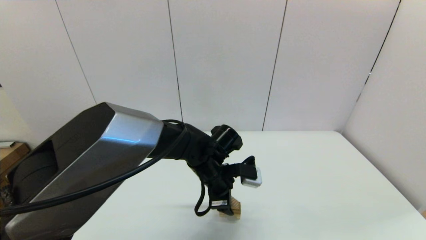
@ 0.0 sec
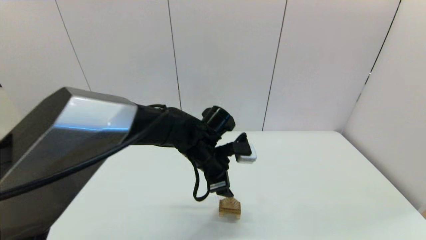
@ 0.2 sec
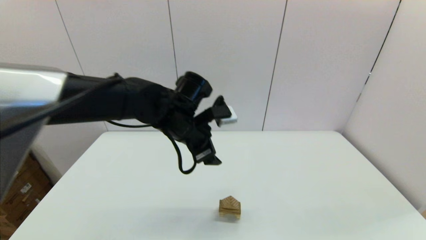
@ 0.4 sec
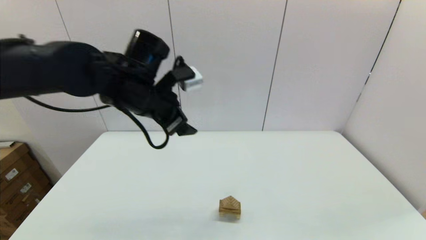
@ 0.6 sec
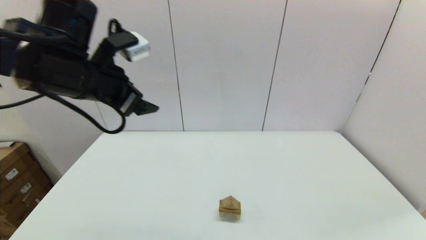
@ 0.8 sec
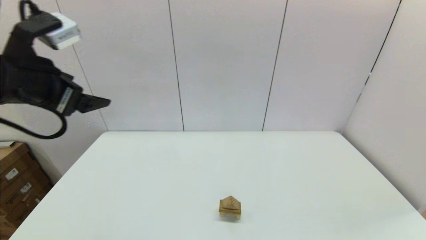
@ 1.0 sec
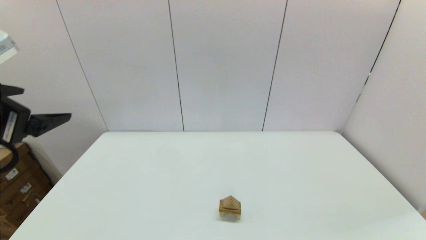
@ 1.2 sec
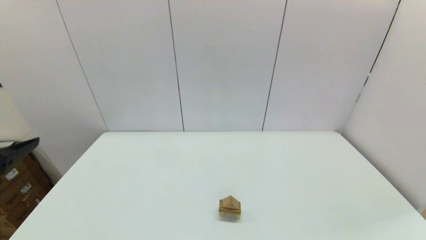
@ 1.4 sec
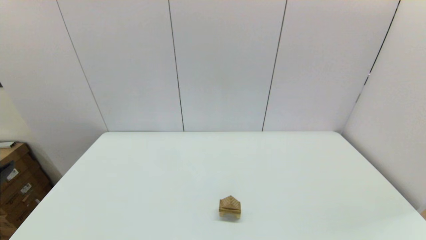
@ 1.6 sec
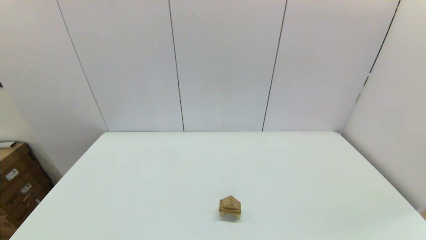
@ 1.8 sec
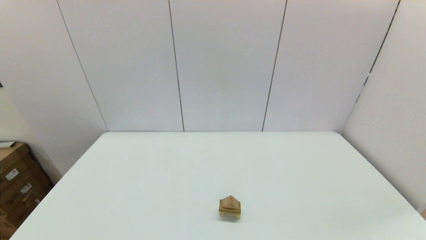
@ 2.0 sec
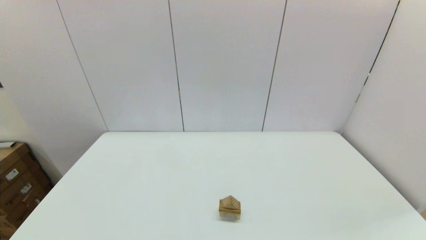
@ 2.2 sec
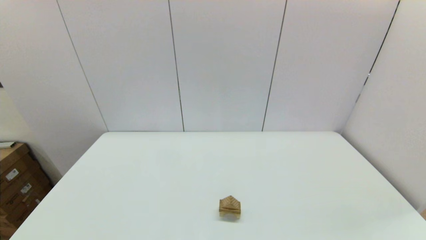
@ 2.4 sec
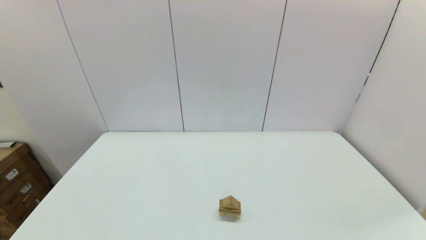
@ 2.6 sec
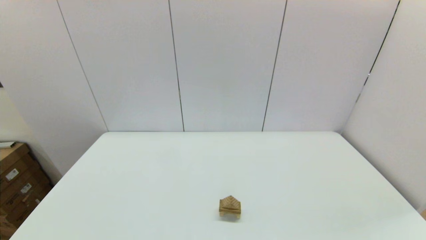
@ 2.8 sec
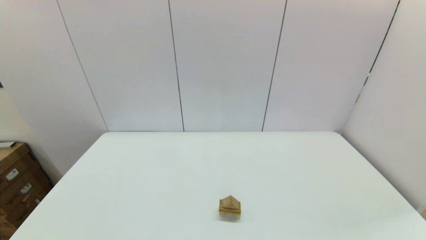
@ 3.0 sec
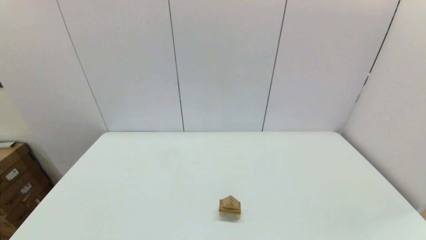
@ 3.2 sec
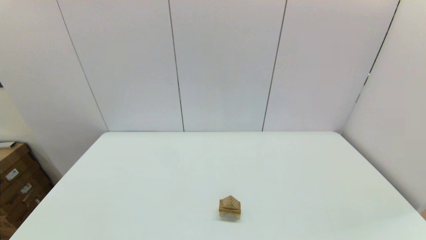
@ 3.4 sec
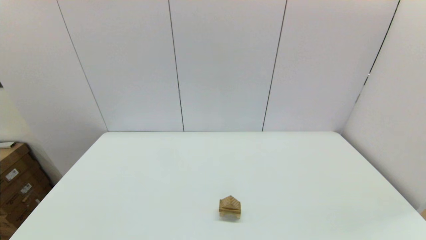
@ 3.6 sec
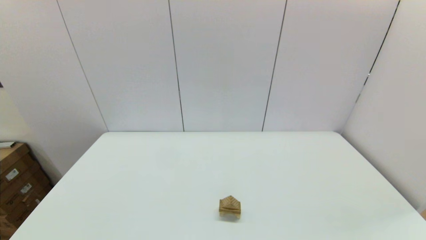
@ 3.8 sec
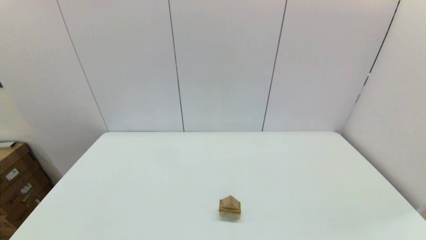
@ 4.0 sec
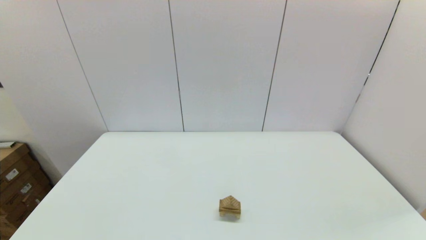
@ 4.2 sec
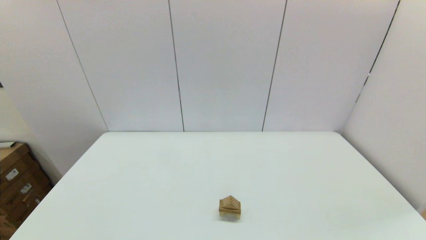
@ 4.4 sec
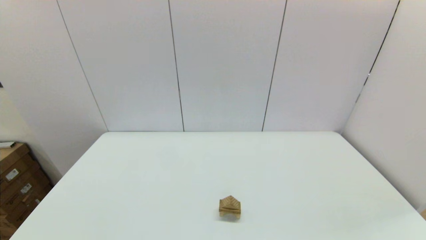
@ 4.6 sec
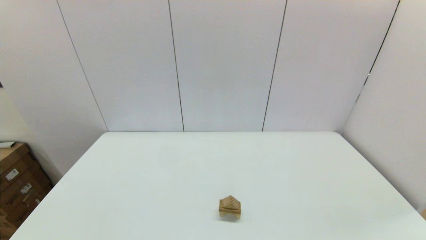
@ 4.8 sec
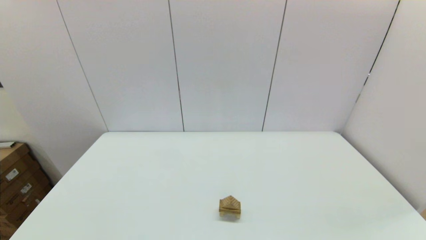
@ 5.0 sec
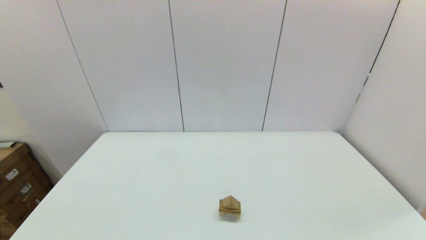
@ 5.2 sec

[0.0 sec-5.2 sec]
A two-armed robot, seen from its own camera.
Task of the whole recording: place the arched building blocks in the center of the table, set up the rectangular building blocks, and then set up the triangular building blocks.
0.0 sec to 1.8 sec: The left gripper travels to the left, backward and upward by about 40 cm.
3.4 sec to 5.2 sec: Both grippers stay about where they are.
